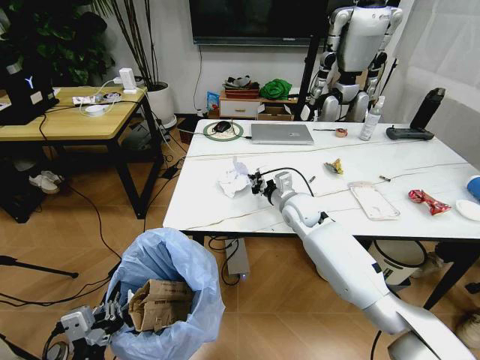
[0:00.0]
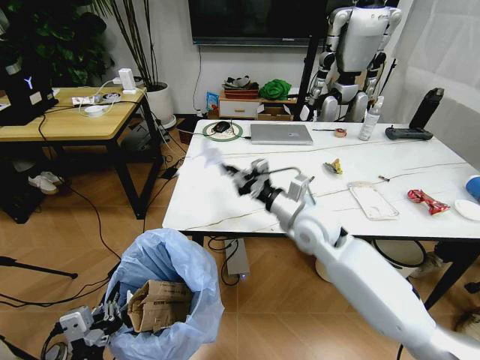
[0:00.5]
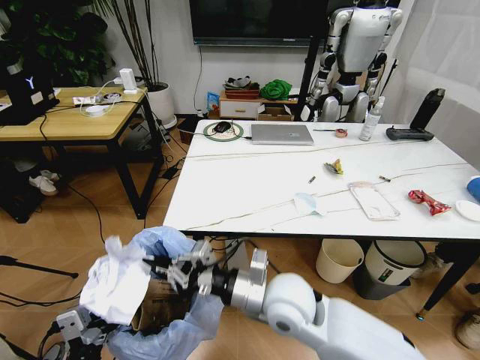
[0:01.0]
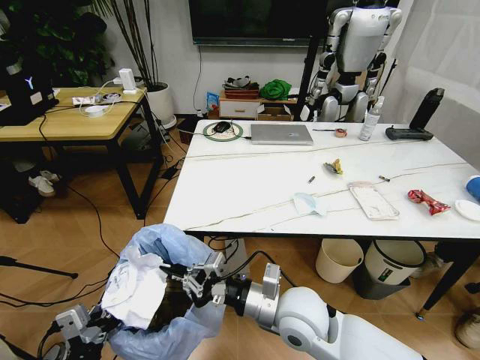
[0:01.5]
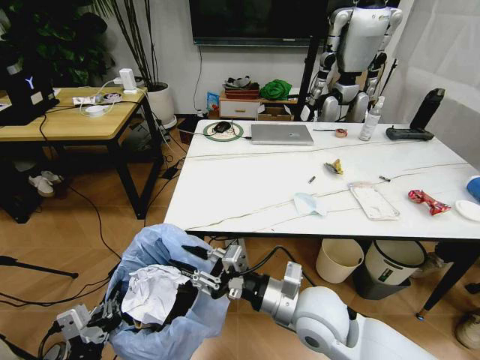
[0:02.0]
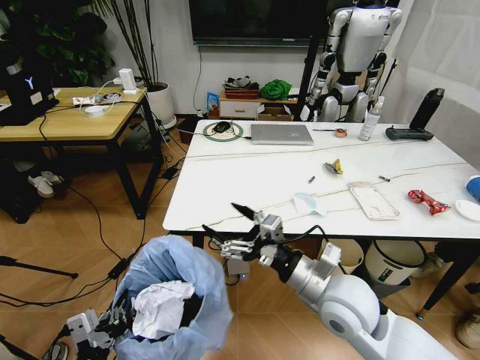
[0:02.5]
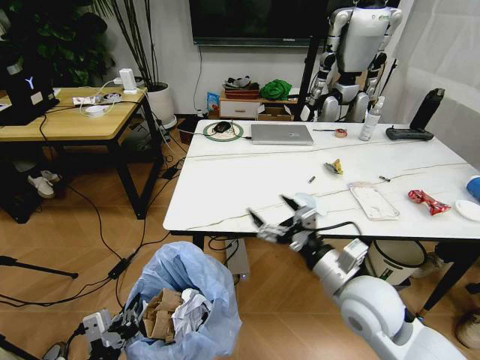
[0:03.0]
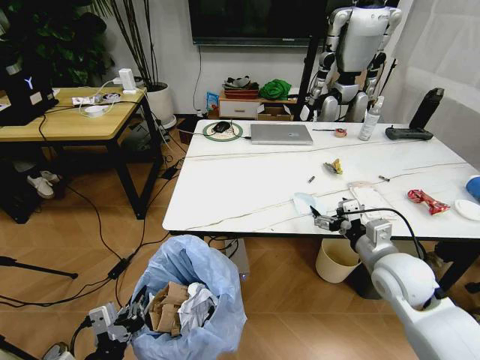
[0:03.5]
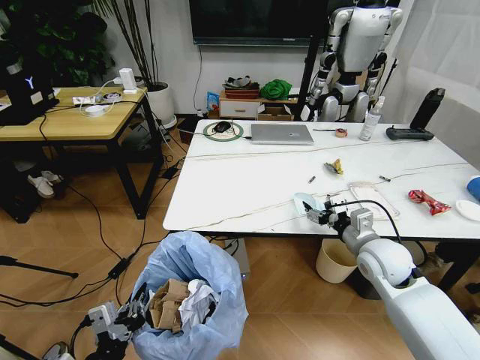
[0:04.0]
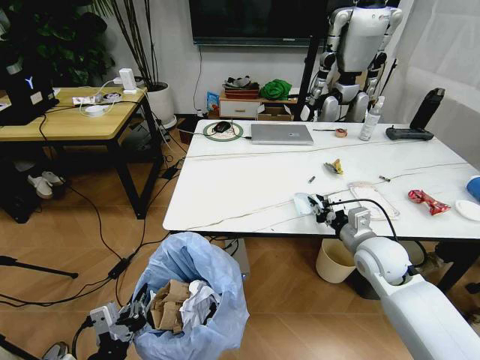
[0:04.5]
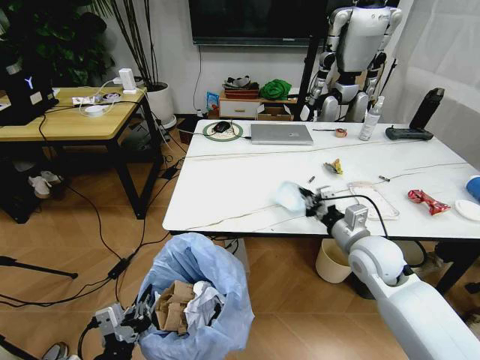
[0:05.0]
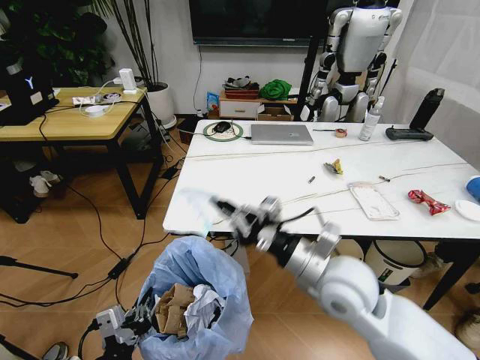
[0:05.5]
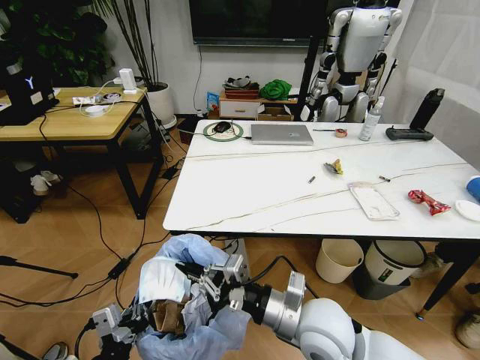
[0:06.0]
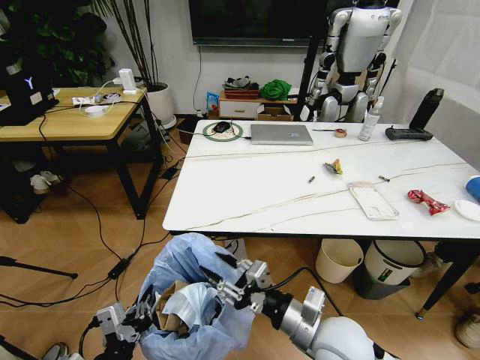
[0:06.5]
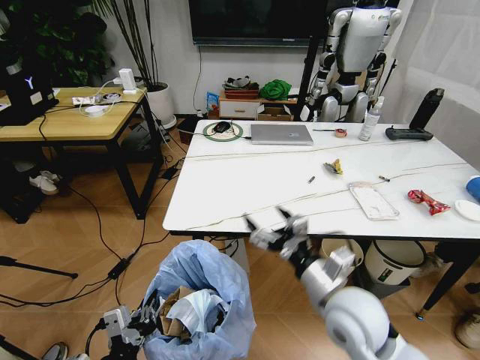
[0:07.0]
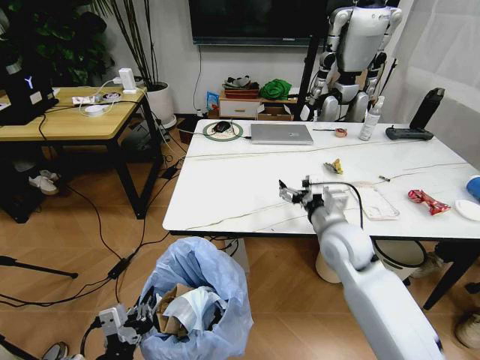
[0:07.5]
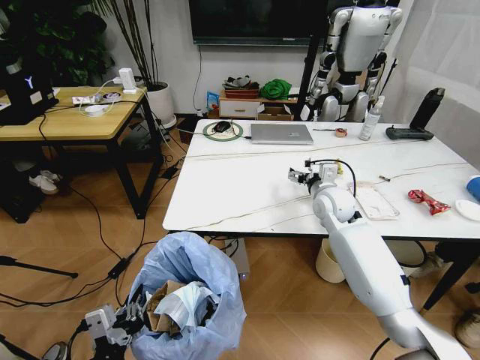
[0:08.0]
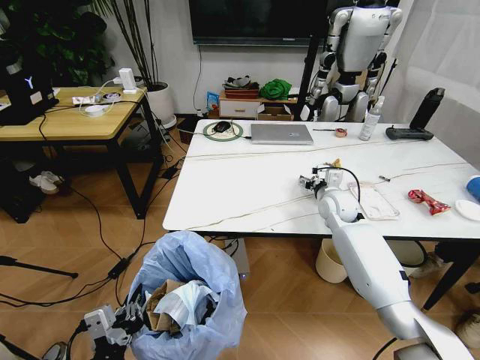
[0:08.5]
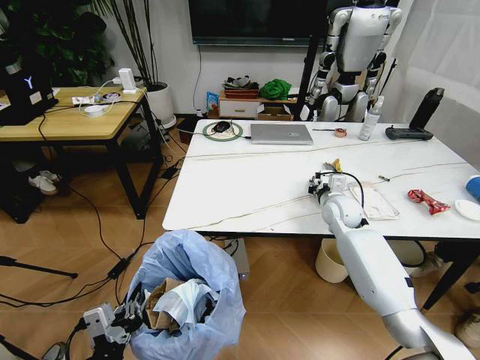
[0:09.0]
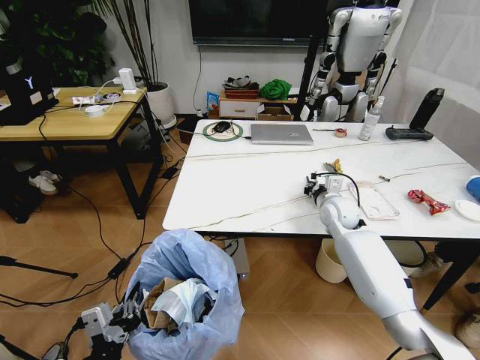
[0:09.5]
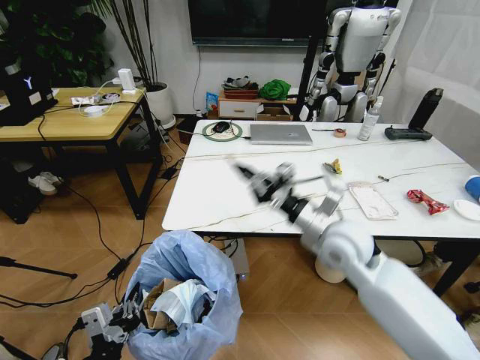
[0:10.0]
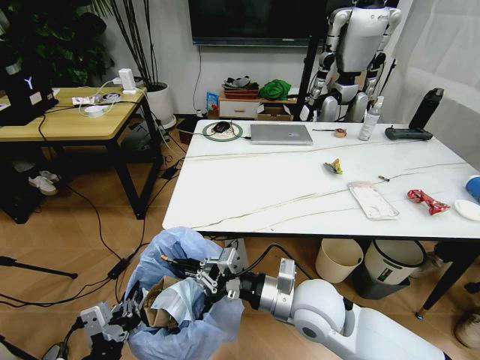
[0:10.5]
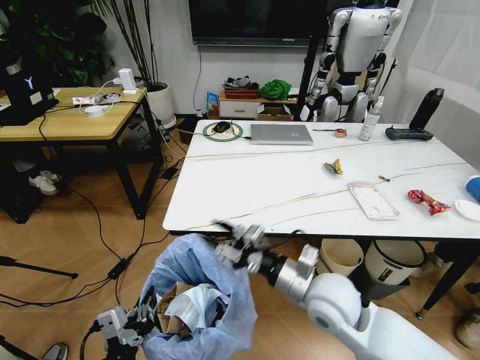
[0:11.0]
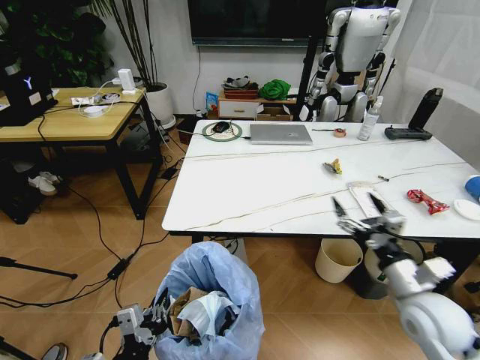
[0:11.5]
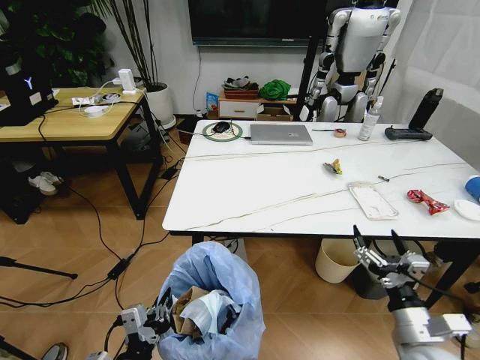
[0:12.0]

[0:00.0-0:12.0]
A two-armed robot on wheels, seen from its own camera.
Task of the whole recording: Pick up the trash bin and place the trash from the table into it.
0:00.0 to 0:02.0: The right gripper travels backward by some 25 cm, and opens.
0:02.0 to 0:04.0: The right gripper travels to the right and forward by some 20 cm, and opens up.
0:04.0 to 0:06.0: The right gripper is displaced to the left and backward by approximately 20 cm, and closes.
0:06.0 to 0:08.0: The right gripper moves forward, about 30 cm, and opens its fingers.
0:08.0 to 0:10.0: The right gripper shifts about 15 cm backward, and closes up.
0:10.0 to 0:12.0: The right gripper travels backward, to the right and downward by approximately 25 cm, and opens. The left gripper shifts by approximately 5 cm.

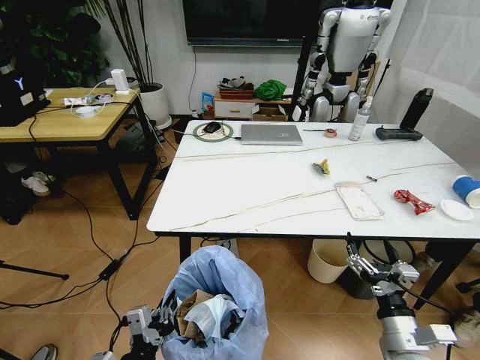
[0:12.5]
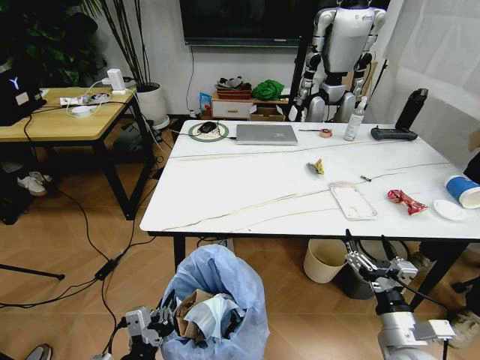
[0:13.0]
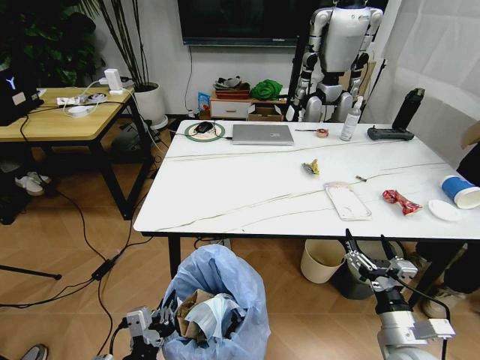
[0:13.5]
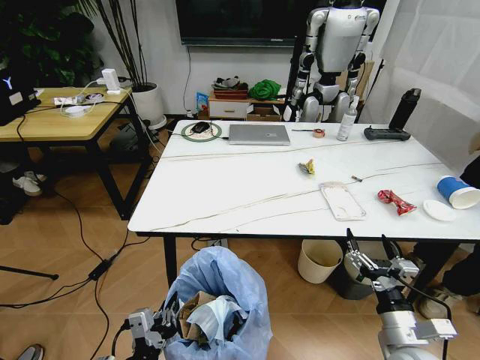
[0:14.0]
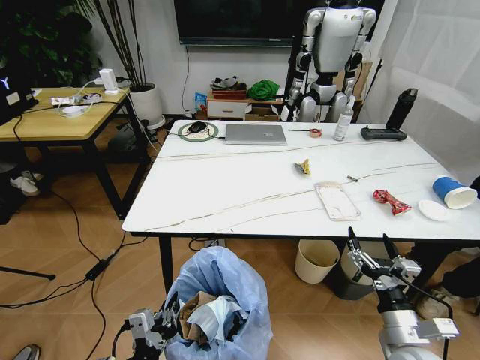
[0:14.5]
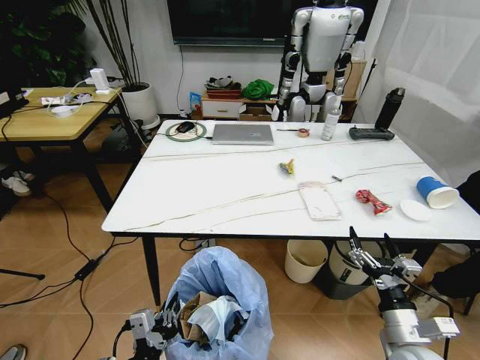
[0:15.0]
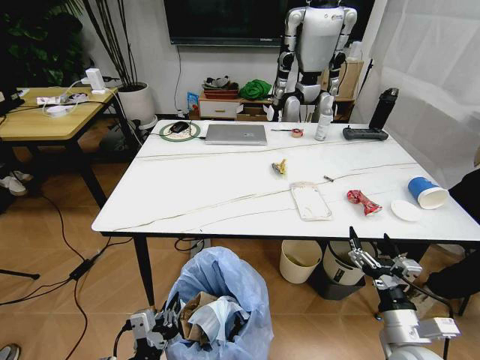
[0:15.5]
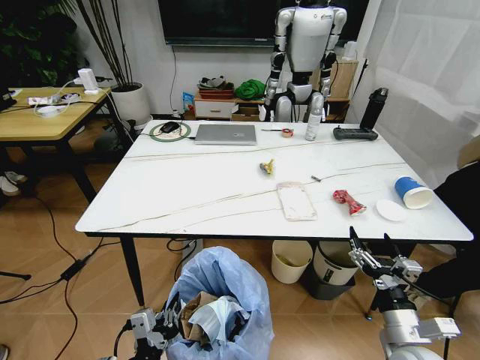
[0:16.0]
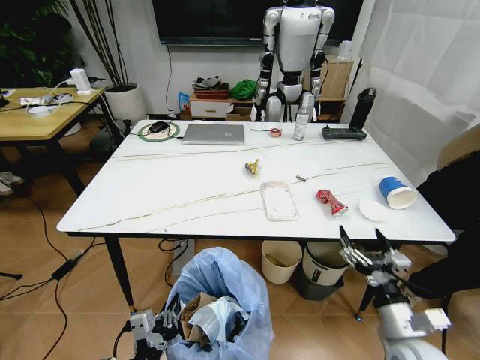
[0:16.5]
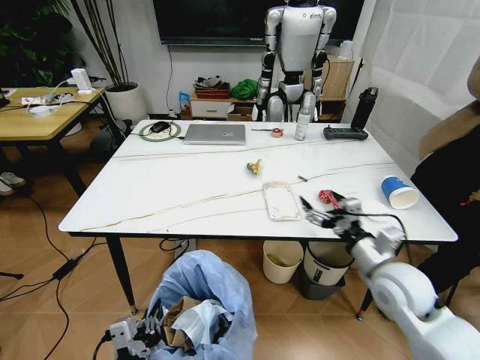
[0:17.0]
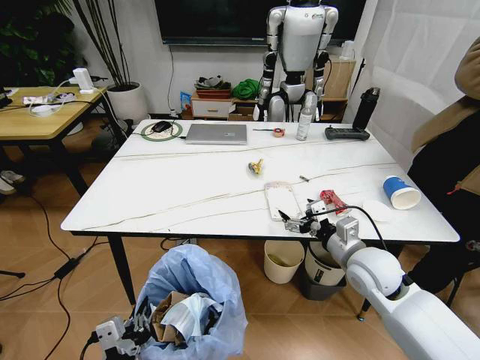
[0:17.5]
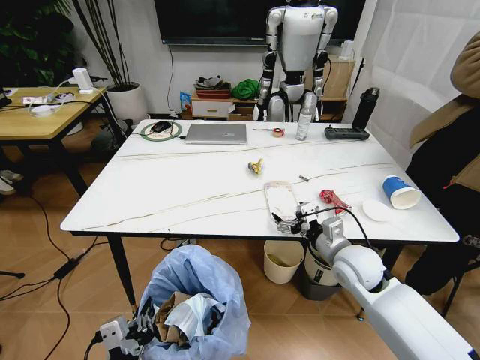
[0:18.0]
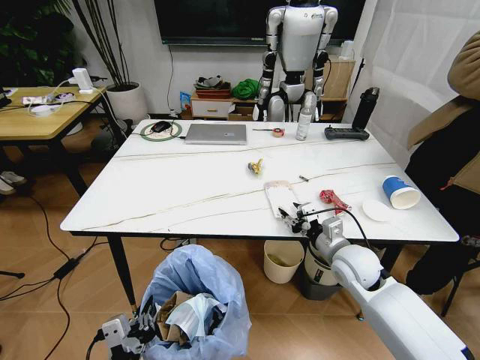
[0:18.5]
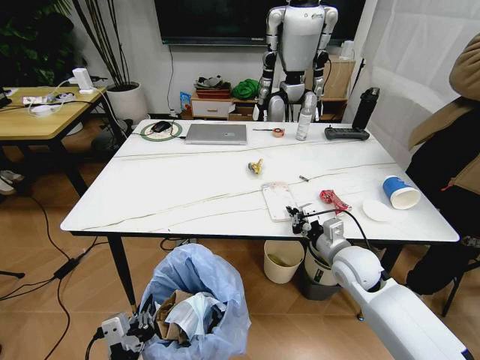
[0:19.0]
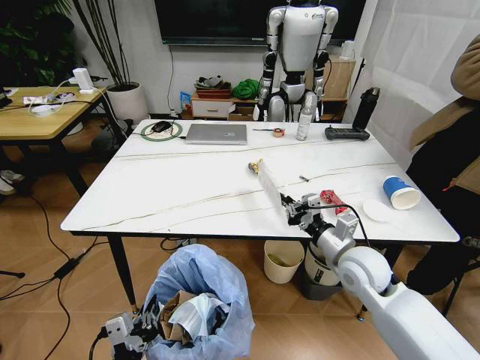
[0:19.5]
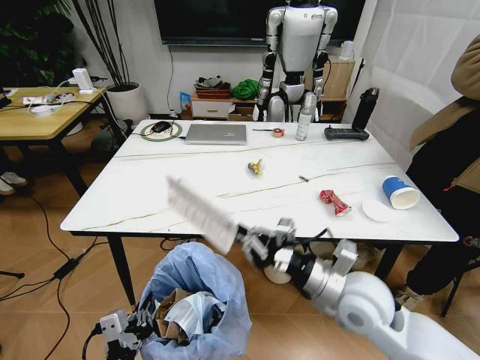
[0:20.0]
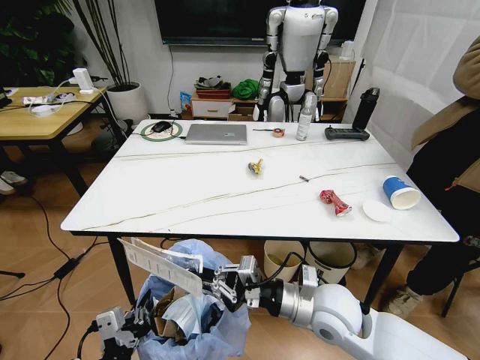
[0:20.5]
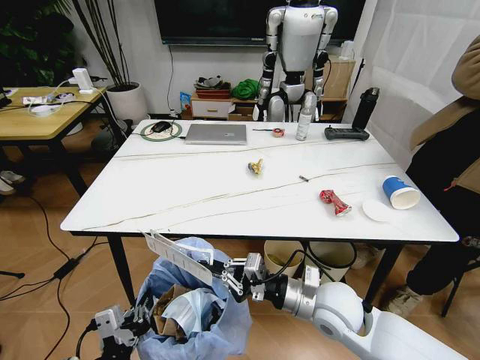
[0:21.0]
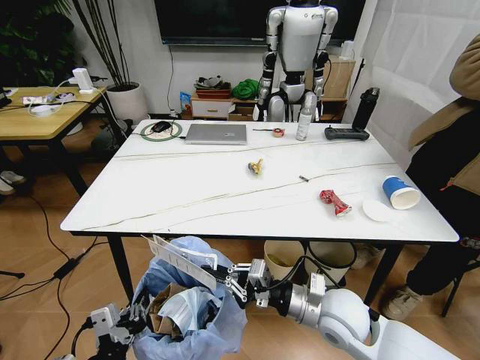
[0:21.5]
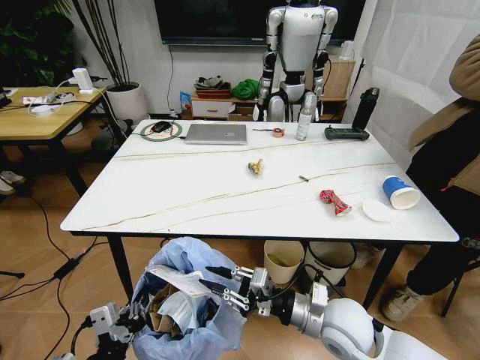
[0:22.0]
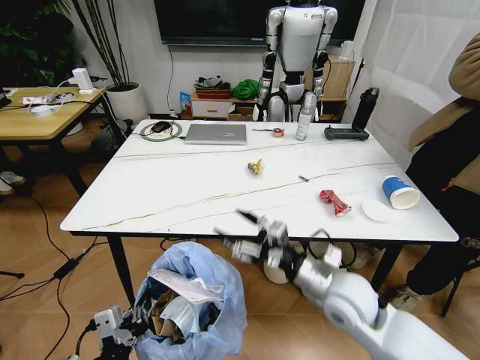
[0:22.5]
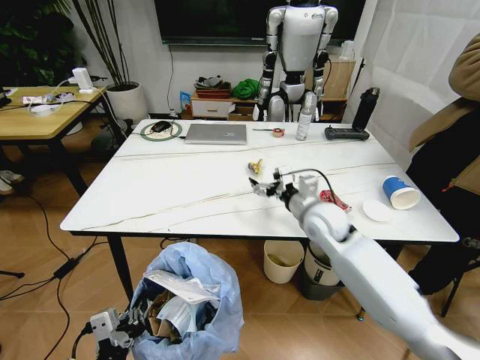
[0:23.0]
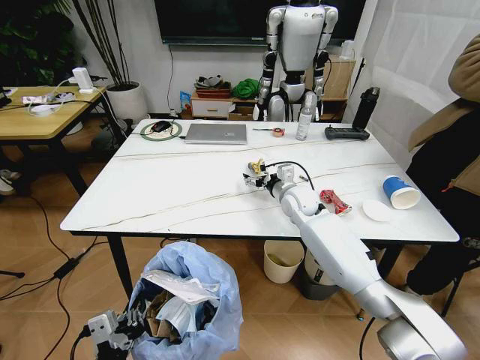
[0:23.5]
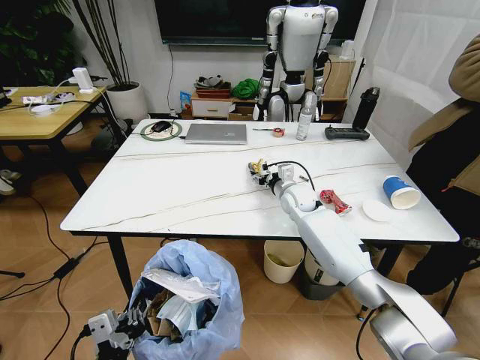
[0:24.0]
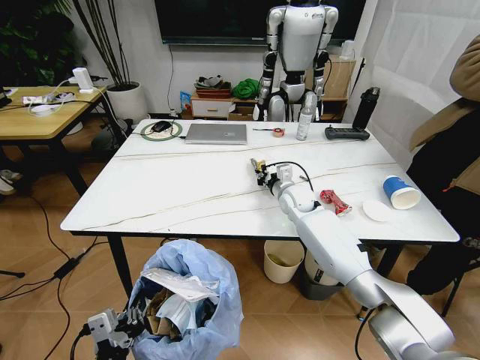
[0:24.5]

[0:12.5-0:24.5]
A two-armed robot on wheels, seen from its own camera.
Task of the whole recording: Pick up the trash bin and place the trash from the table into it.
0:16.5 to 0:18.5: The right gripper goes approximately 15 cm forward, and closes up.
0:18.5 to 0:20.5: The right gripper goes some 15 cm backward and to the left, and closes its fingers.
0:20.5 to 0:22.5: The right gripper opens.
0:22.5 to 0:24.5: The right gripper heads forward, covering roughly 30 cm, and closes its fingers.

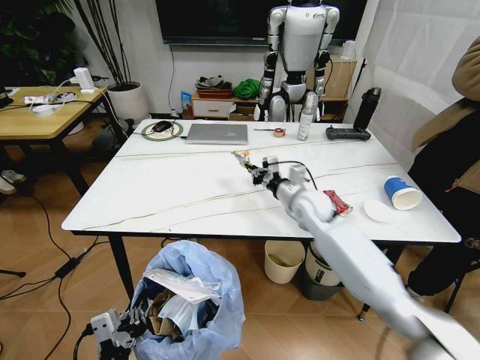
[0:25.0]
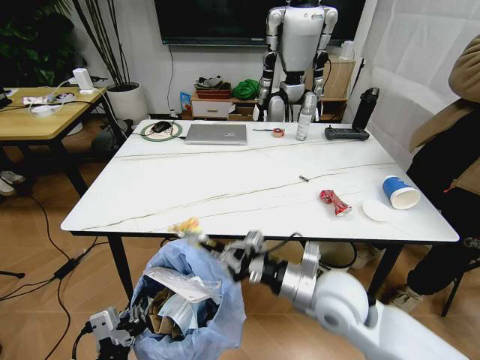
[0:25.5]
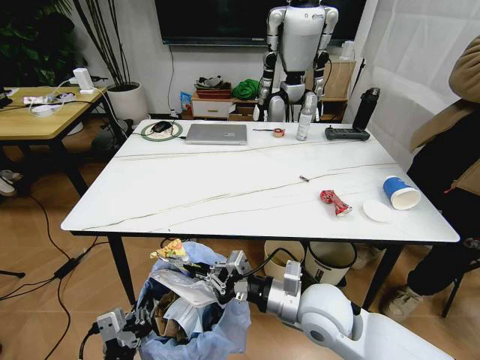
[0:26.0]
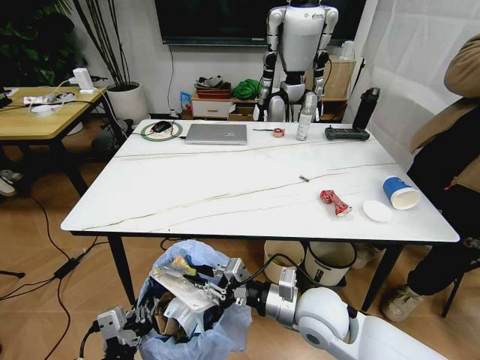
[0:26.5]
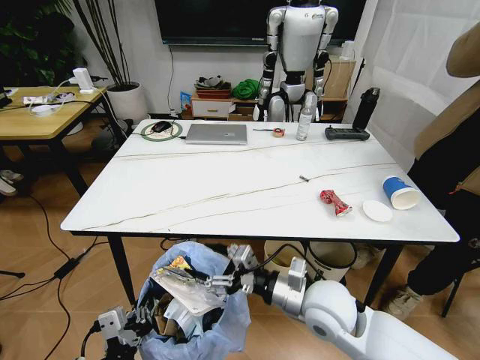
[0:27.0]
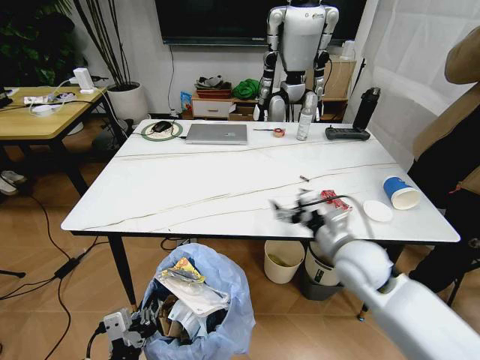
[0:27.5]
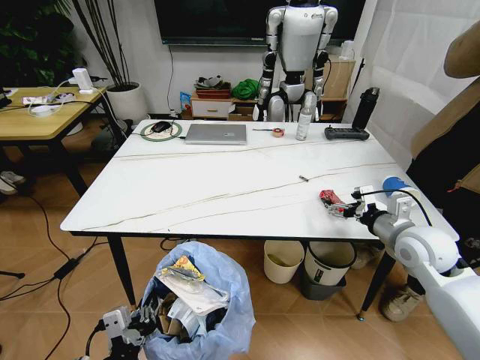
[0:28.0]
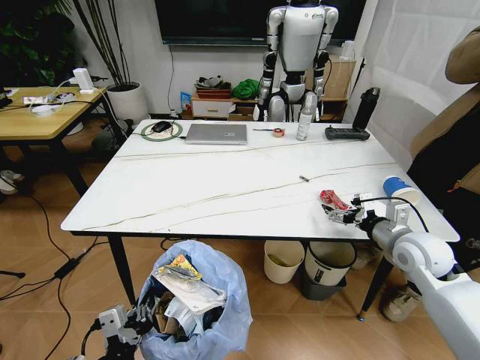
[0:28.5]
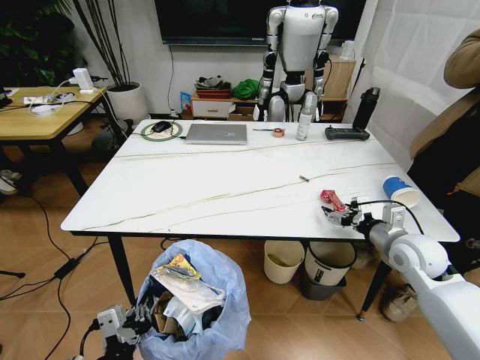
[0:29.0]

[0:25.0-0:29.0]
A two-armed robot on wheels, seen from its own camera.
Task of the whole recording: Pick up the trash bin and place the trash from the table into it.
0:25.0 to 0:27.0: The right gripper travels backward by roughly 25 cm, and opens its fingers.
0:27.0 to 0:29.0: The right gripper goes roughly 25 cm to the right and forward.
